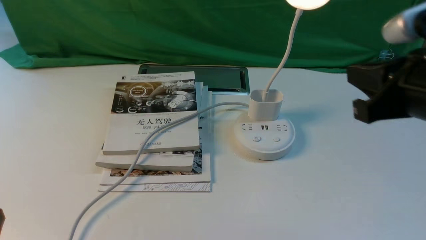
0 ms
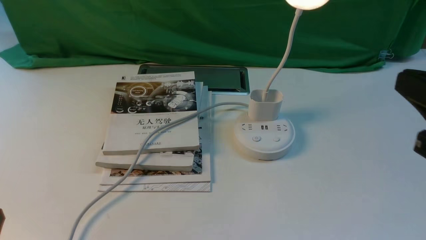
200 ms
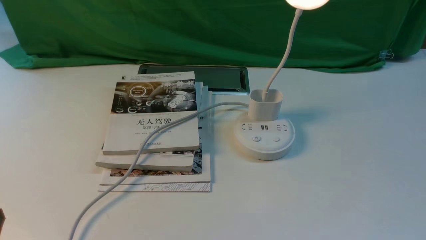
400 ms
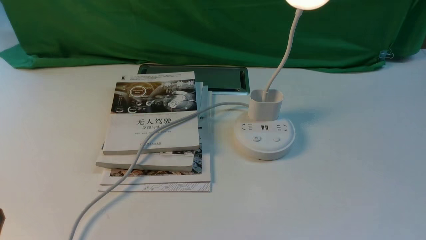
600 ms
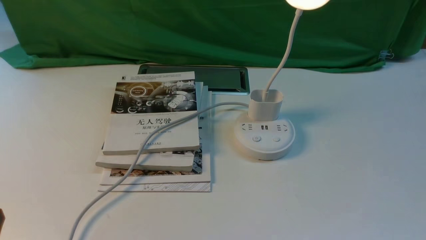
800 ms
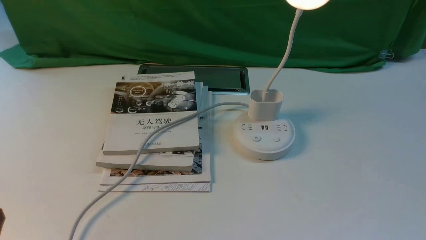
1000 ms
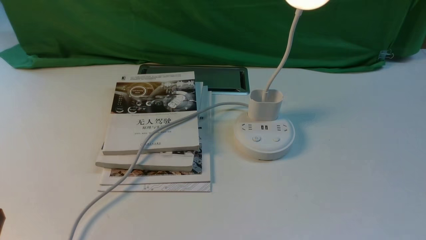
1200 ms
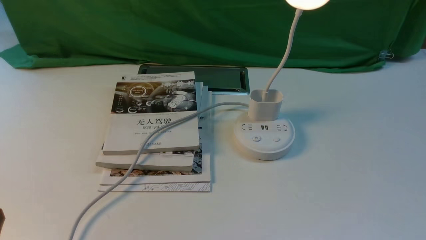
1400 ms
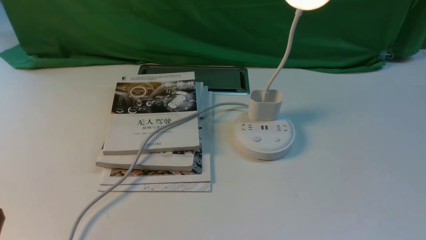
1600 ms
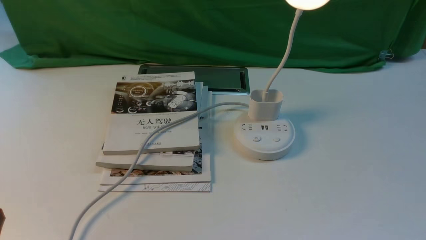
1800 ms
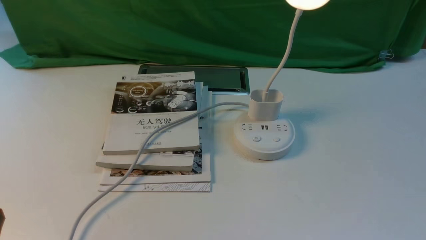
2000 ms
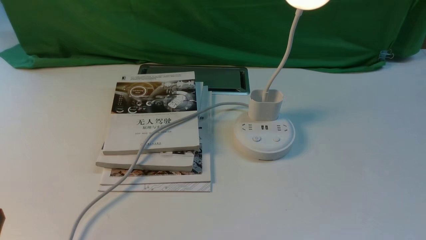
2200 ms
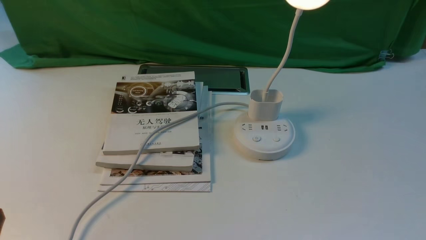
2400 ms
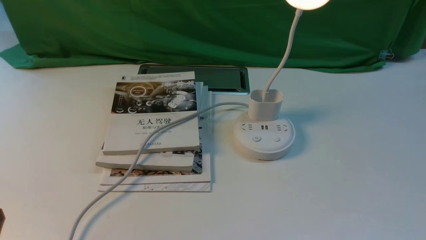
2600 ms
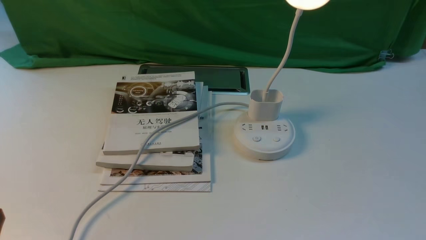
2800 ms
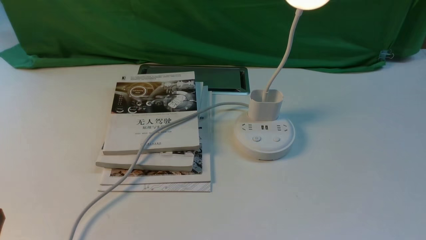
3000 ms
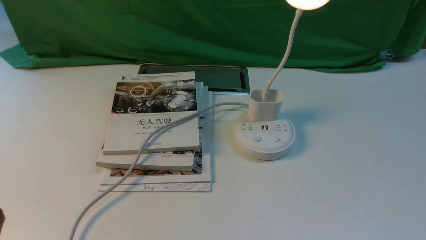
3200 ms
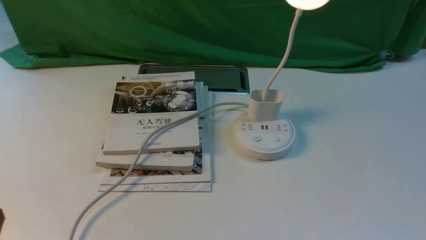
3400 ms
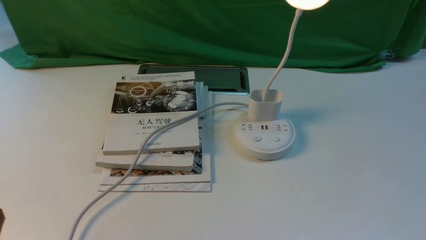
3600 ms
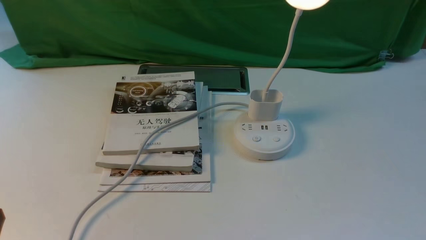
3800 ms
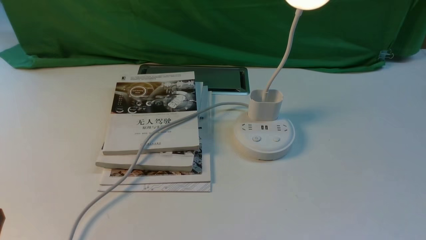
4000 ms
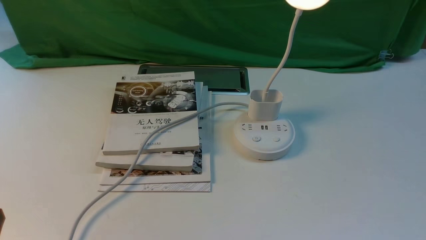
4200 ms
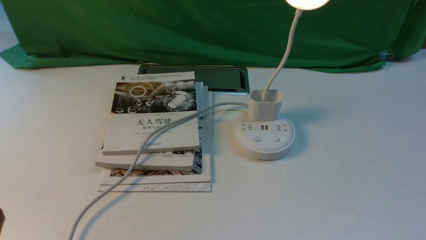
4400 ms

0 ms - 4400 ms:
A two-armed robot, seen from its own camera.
0 ms - 1400 ms: The right gripper heads backward, downward and to the right, covering about 20 cm.
